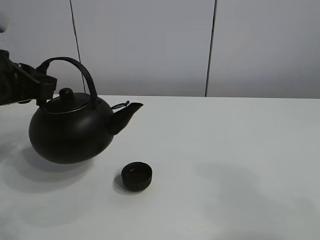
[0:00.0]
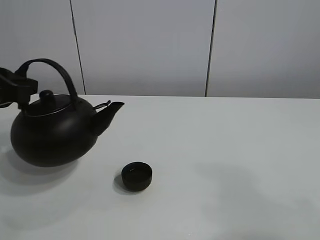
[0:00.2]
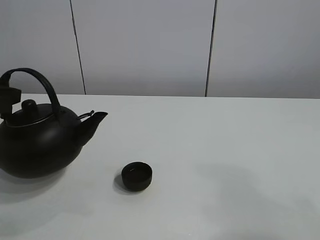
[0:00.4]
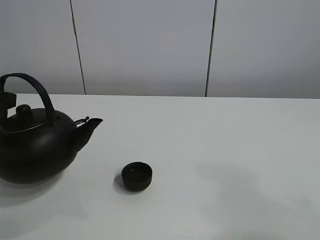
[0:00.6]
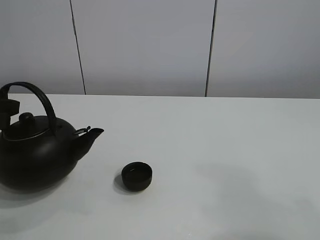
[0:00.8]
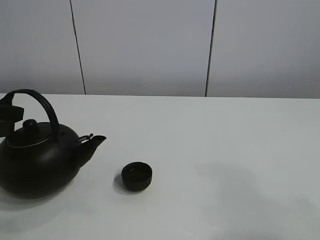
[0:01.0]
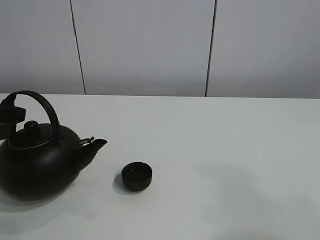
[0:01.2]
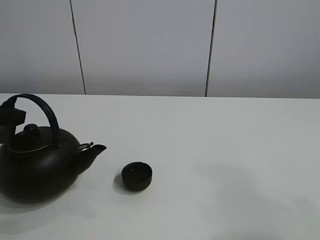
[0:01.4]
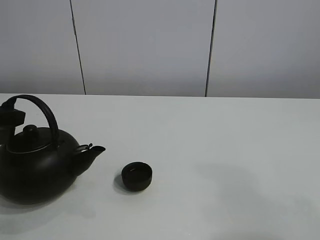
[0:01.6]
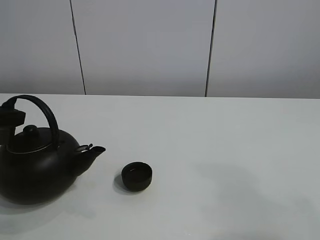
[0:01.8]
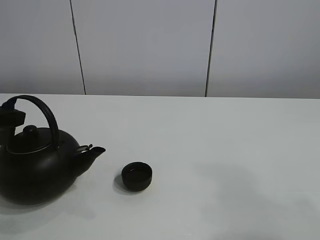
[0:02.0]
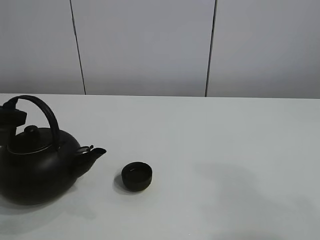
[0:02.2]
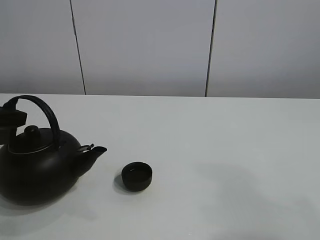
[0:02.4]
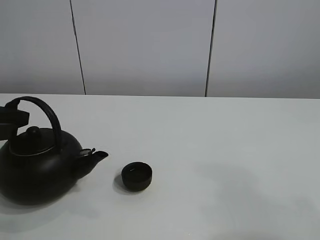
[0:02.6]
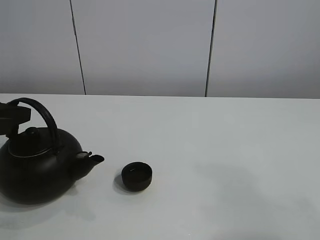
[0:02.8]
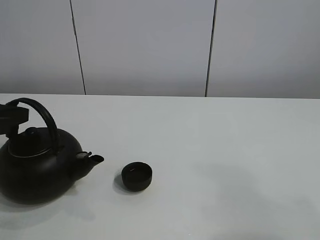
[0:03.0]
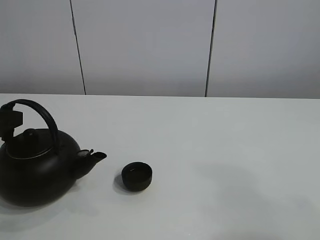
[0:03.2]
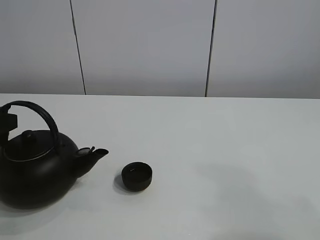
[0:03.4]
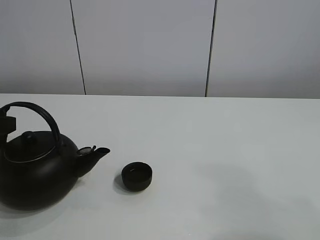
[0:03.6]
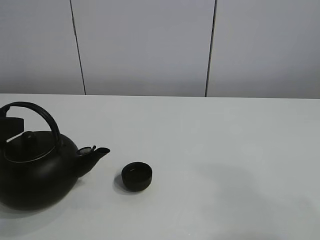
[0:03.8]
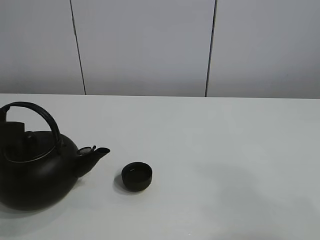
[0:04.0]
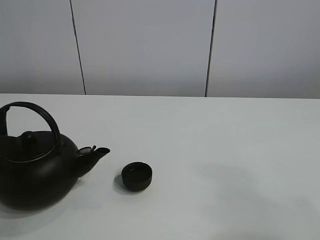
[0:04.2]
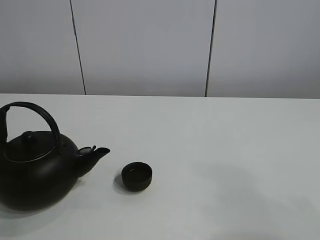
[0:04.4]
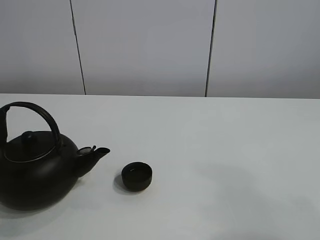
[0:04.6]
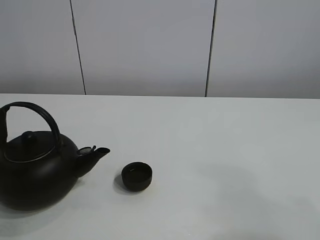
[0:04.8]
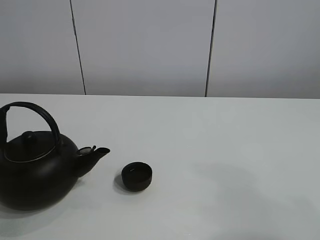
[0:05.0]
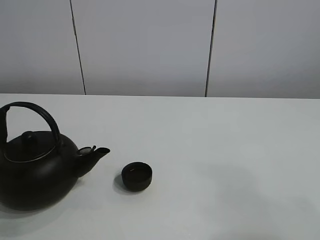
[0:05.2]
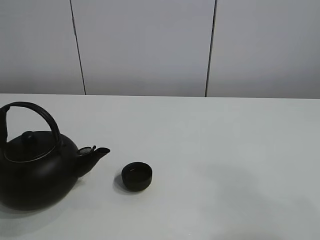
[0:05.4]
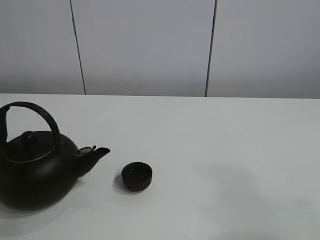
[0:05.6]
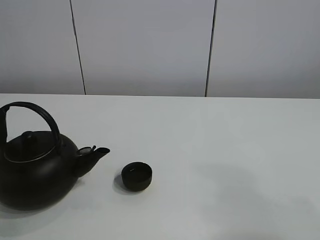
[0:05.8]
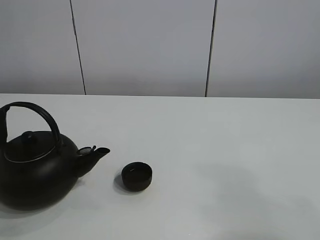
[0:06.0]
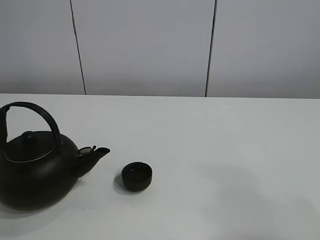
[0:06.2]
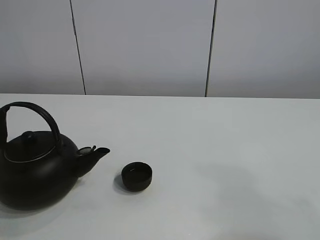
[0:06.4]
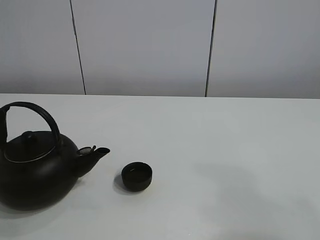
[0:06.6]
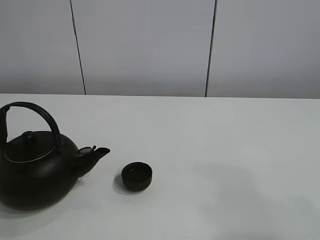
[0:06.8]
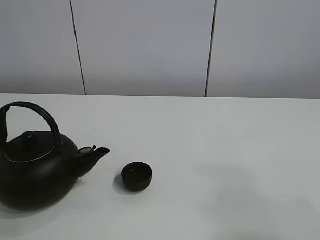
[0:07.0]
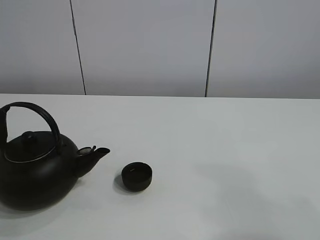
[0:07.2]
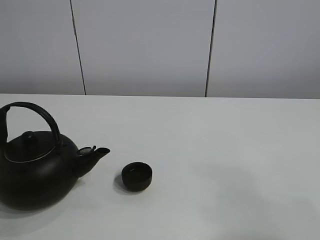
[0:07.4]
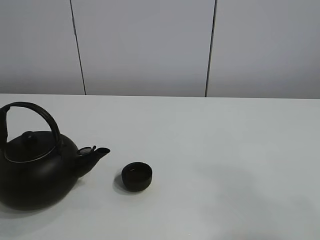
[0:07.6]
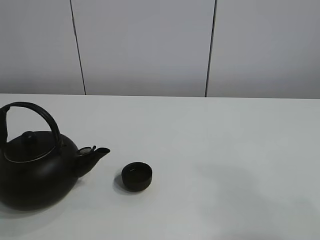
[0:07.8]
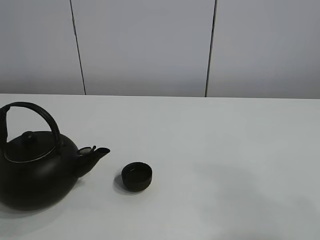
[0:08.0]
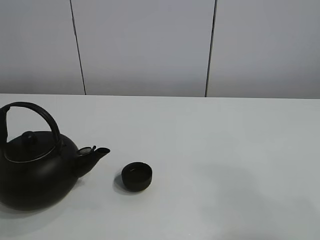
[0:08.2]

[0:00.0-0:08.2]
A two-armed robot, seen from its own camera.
Task of the whole recording: pour tea into the teacup.
0:00.0 to 0:01.6: The left gripper is displaced to the left by some 5 cm.
0:01.6 to 0:03.2: There are only small adjustments of the grippers.
0:03.2 to 0:05.0: The left gripper travels backward by roughly 5 cm, and opens its fingers.

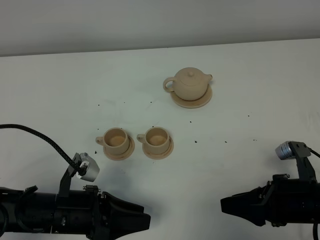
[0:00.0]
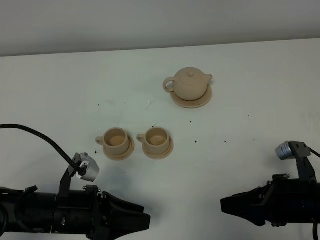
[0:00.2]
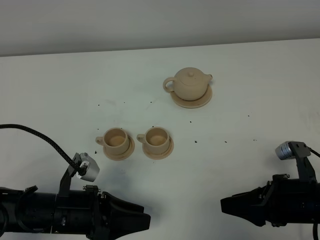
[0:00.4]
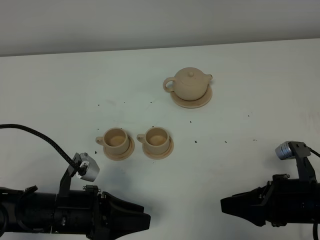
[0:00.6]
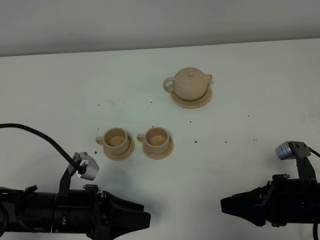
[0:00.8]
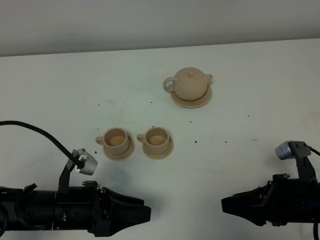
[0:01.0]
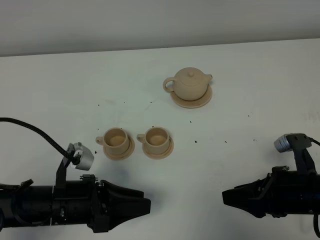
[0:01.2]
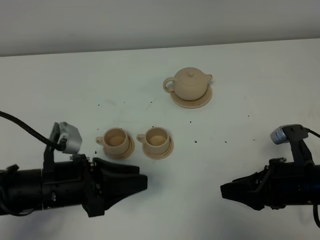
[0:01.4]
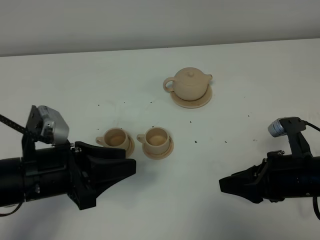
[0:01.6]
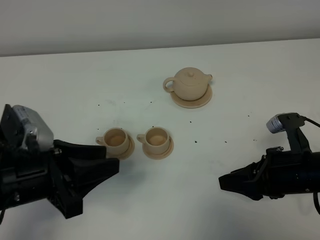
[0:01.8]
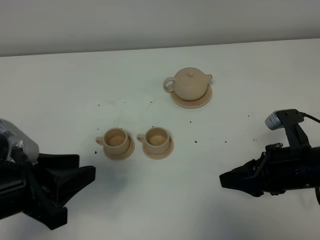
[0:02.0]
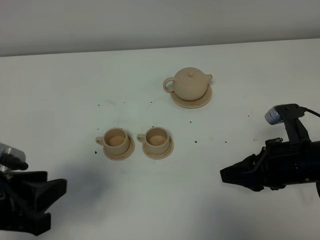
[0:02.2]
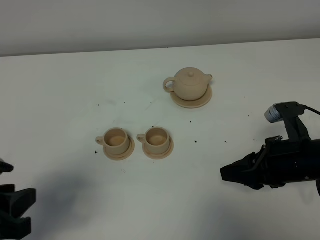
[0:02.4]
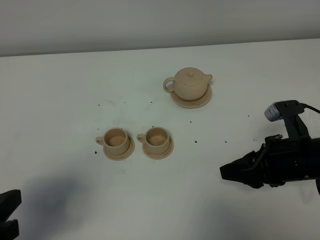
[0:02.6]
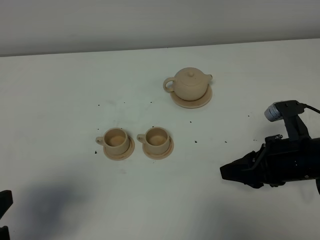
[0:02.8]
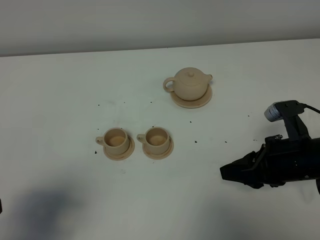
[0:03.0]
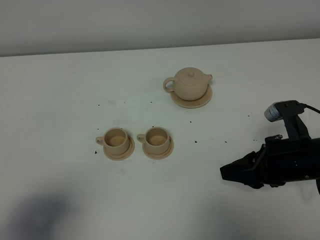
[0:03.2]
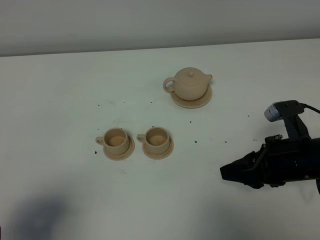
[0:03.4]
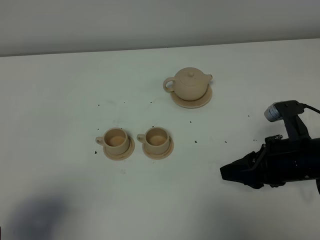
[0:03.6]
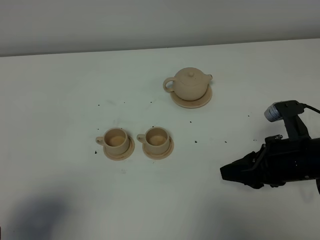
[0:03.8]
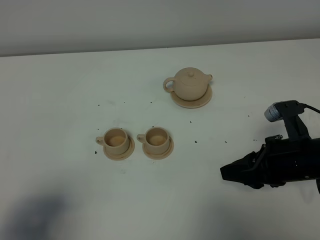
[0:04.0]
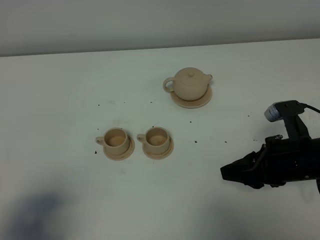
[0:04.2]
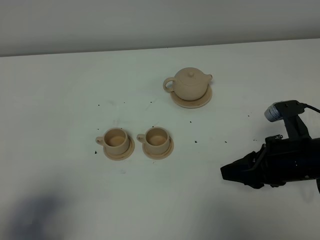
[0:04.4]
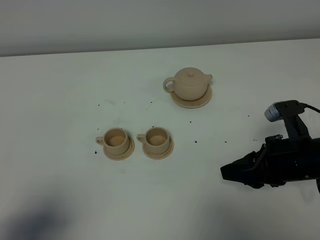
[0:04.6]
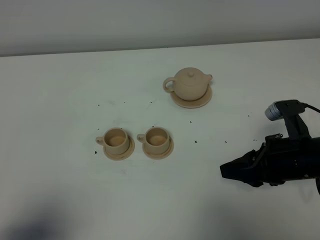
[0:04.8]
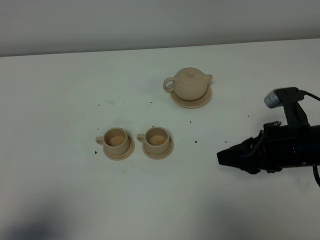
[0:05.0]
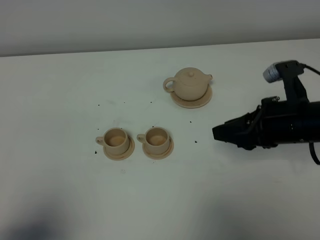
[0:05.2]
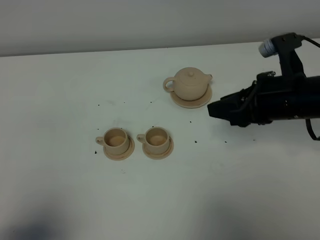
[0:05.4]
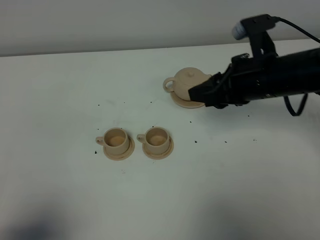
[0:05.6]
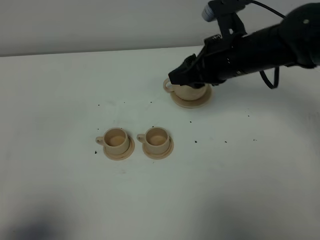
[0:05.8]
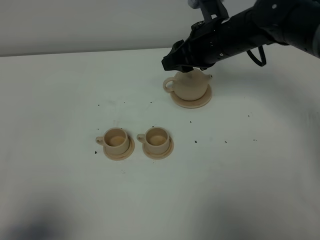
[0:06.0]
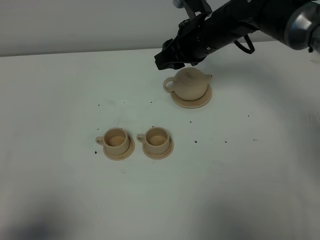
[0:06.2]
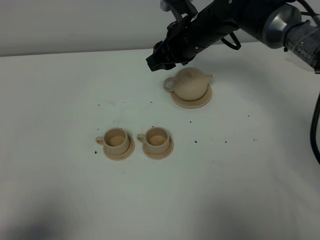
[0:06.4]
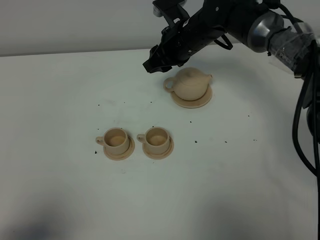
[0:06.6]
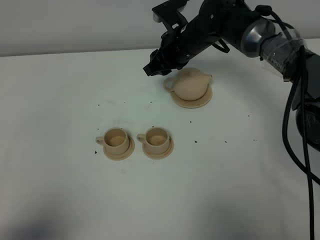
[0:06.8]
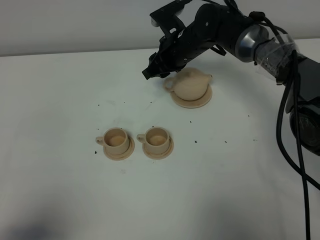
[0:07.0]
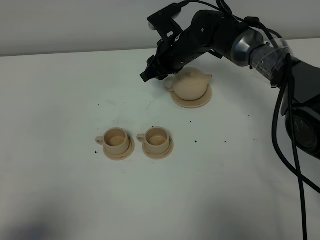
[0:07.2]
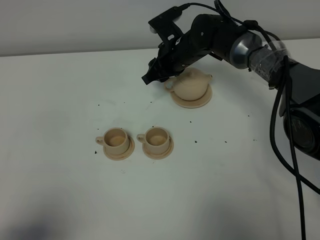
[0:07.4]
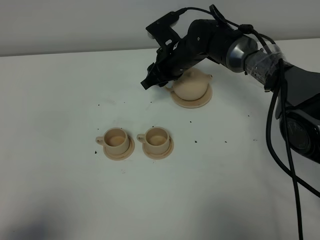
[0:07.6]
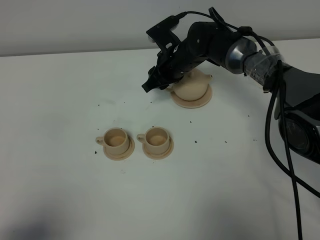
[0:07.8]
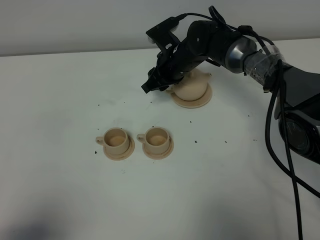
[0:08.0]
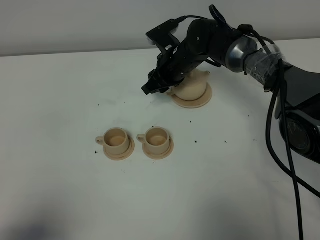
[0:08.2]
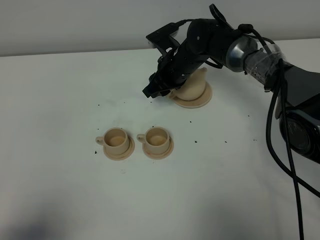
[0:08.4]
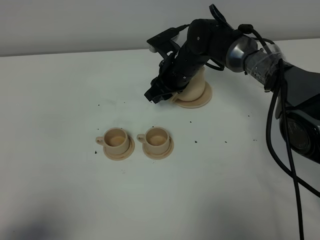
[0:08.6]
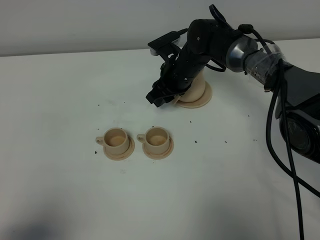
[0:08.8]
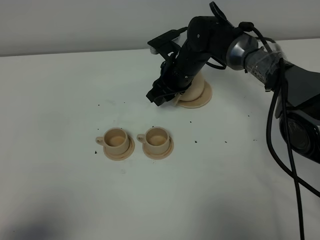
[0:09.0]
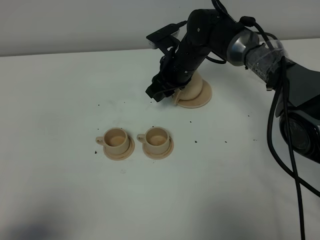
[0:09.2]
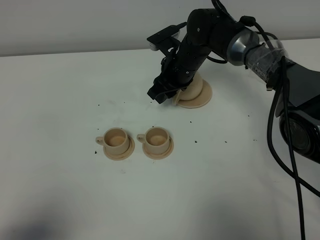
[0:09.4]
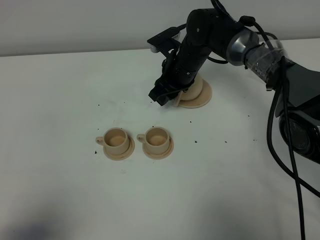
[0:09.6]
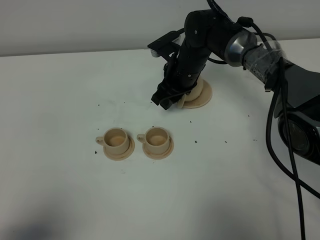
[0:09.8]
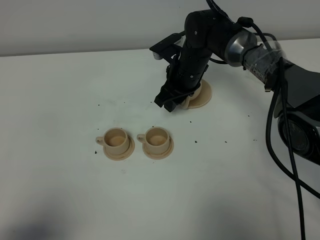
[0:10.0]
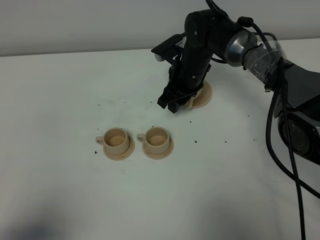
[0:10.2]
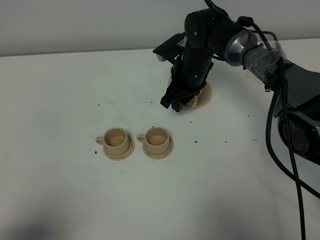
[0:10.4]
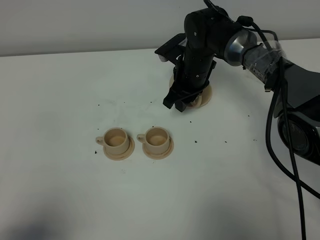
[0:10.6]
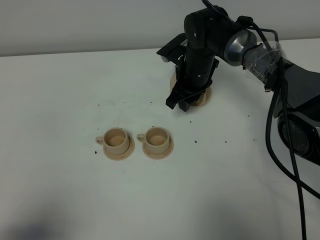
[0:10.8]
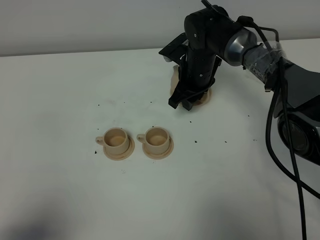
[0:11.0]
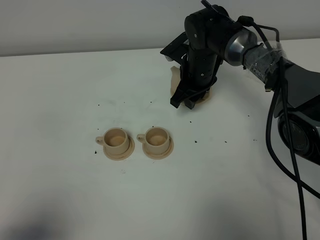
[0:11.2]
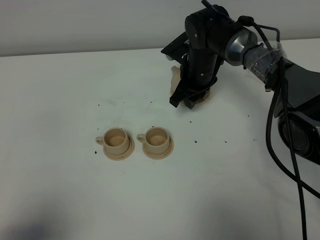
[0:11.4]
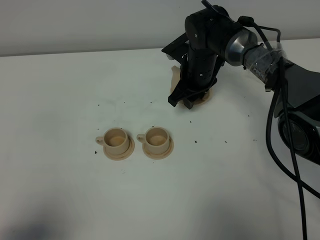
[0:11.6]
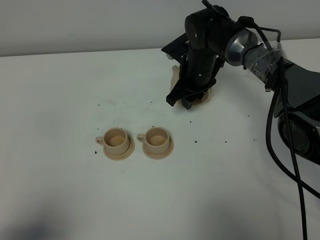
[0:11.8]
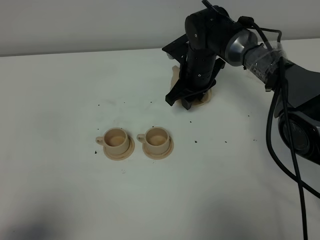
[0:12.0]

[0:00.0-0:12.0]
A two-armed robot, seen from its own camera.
Task of the whole recording: grasp the brown teapot and pour the tea into the two brown teacups one by one, put the brown teapot back in its original place.
0:00.0 to 0:01.6: The left gripper is displaced upward by roughly 10 cm.
0:01.6 to 0:03.0: The left gripper moves backward, to the left and upward, approximately 15 cm.
0:04.4 to 0:06.0: The right gripper moves forward, to the left and upward, roughly 25 cm.
0:06.0 to 0:07.6: The right gripper is displaced downward, forward and to the left by roughly 15 cm.
0:07.6 to 0:09.0: The grippers stay close to where they were, moving slightly.
0:09.0 to 0:10.4: The grippers move only a little.
0:10.4 to 0:12.0: The grippers make only small movements.

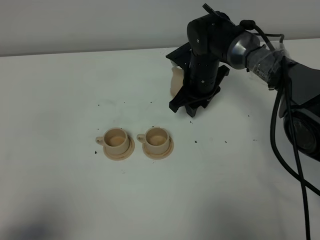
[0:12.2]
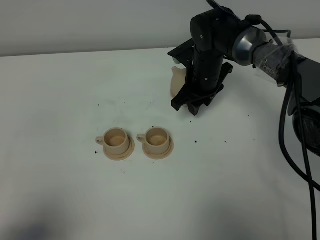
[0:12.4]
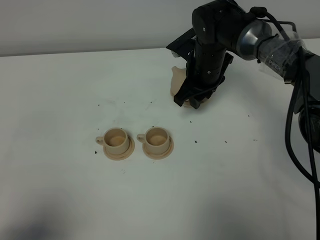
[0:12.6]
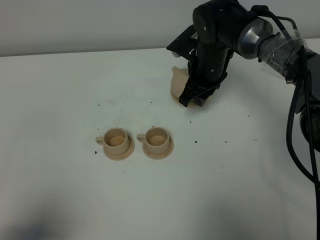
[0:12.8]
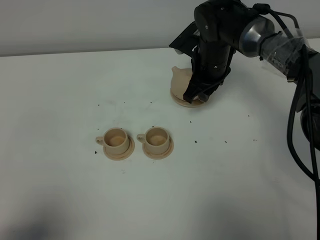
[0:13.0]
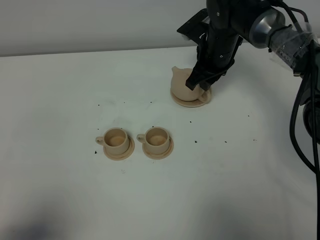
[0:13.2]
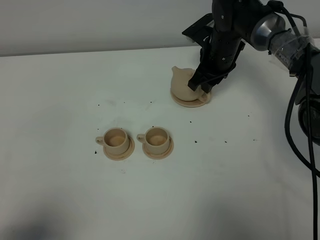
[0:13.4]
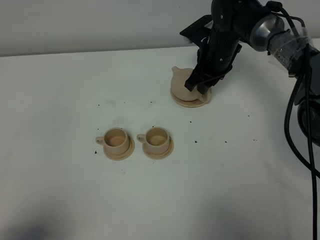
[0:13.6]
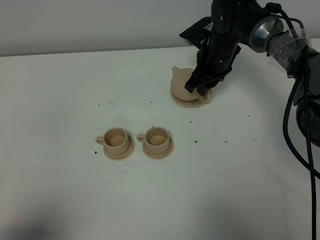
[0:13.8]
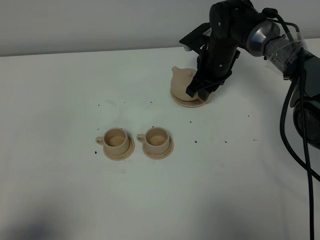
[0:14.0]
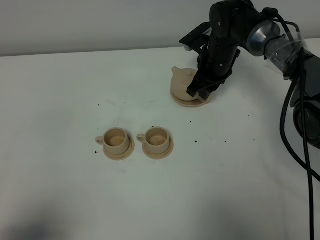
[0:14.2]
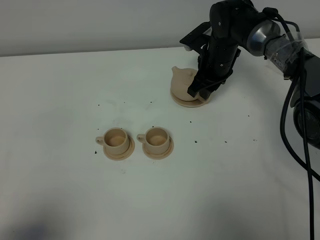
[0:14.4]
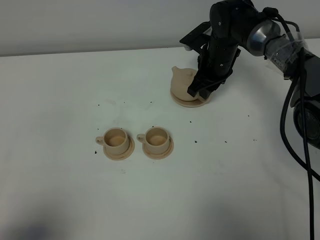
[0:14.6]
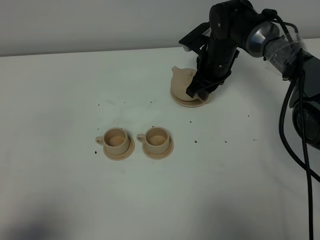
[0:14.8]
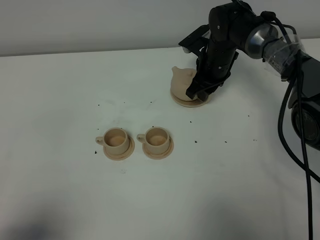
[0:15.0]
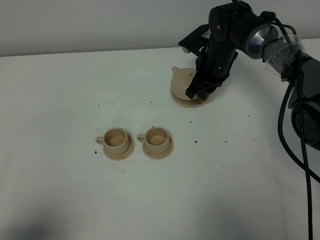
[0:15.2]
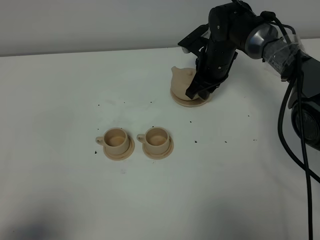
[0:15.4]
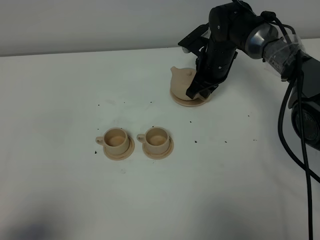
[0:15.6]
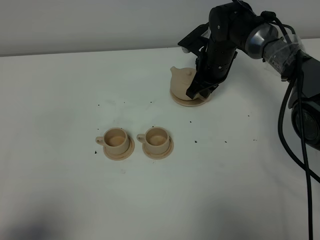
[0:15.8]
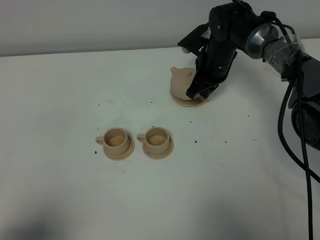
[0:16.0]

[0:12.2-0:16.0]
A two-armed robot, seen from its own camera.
Task of the whole recording: grasp the brown teapot and pour the tea into the two brown teacups one by one, put the brown teapot back in its original place.
0:12.2 to 0:13.4: The right gripper changes place by some 5 cm.
0:13.4 to 0:14.8: There are only small adjustments of the grippers.
0:14.8 to 0:16.0: The right gripper closes its fingers.
